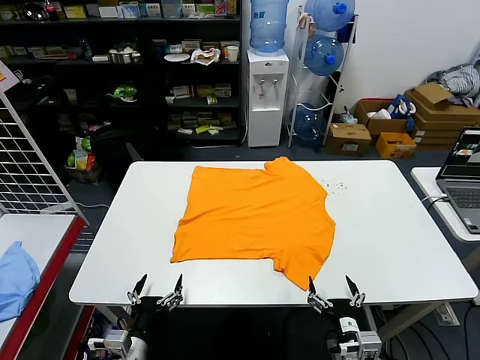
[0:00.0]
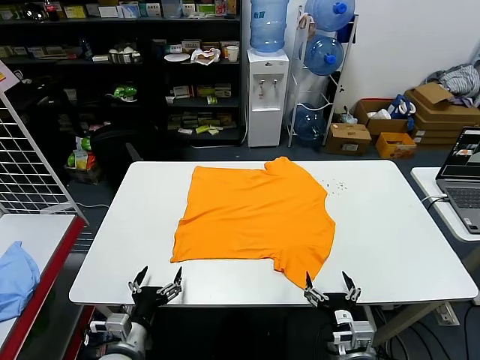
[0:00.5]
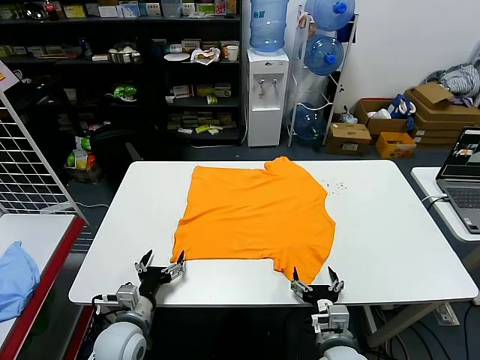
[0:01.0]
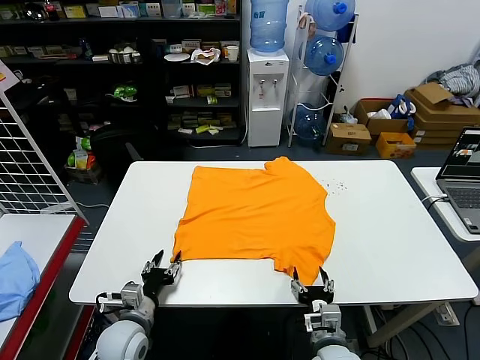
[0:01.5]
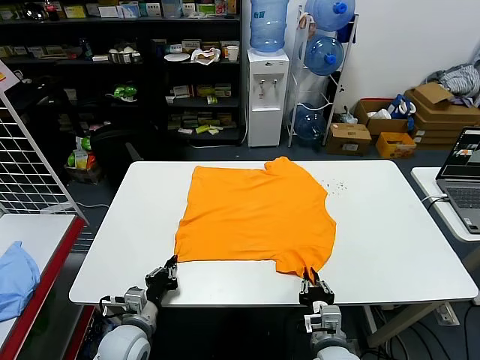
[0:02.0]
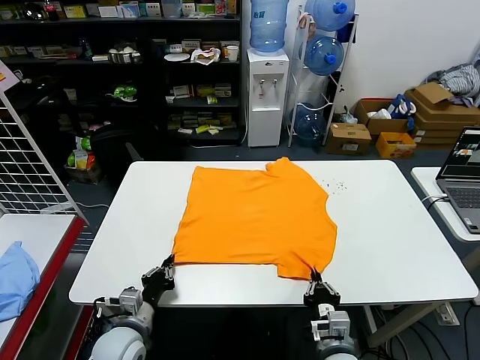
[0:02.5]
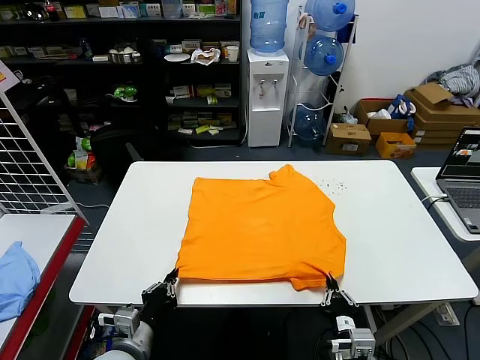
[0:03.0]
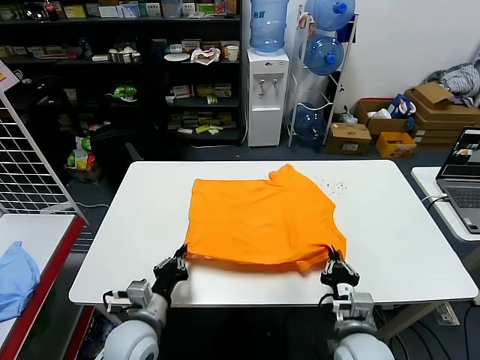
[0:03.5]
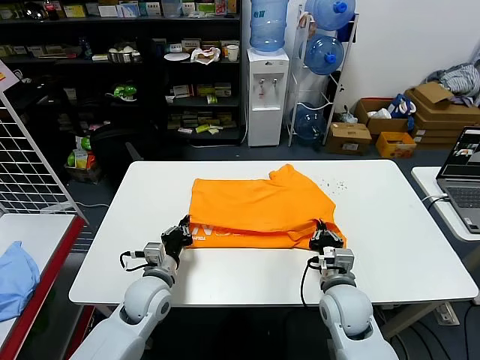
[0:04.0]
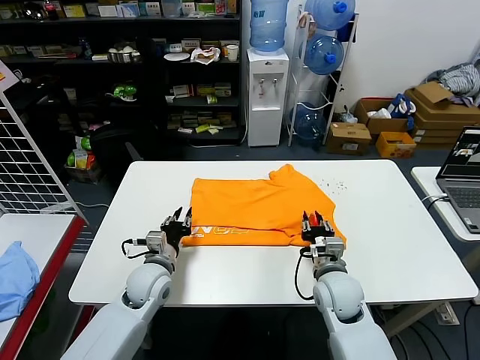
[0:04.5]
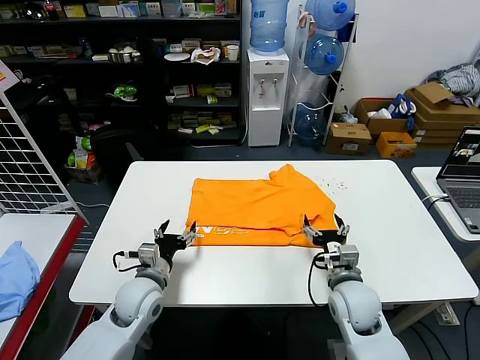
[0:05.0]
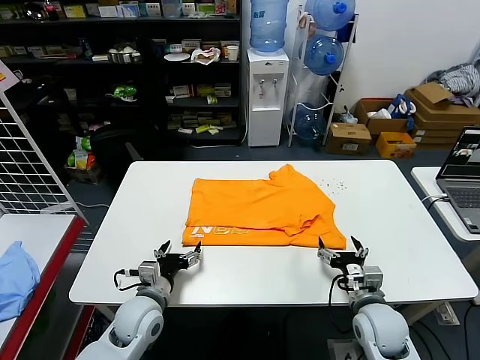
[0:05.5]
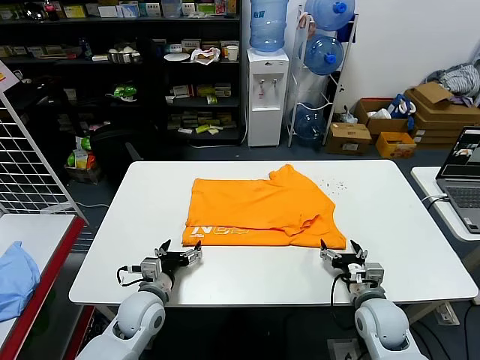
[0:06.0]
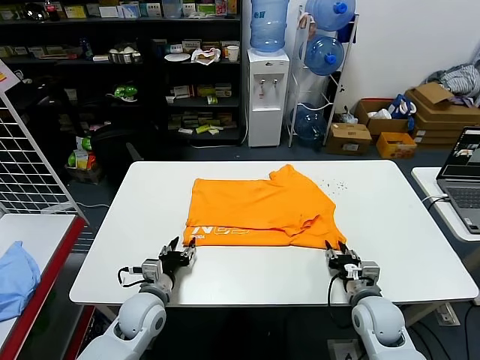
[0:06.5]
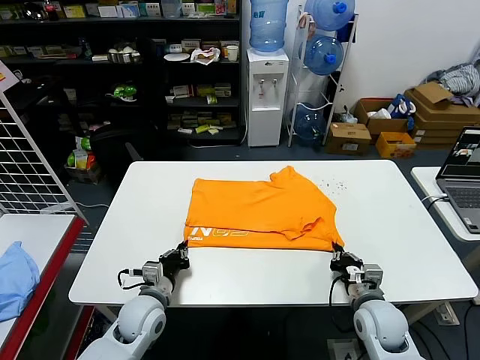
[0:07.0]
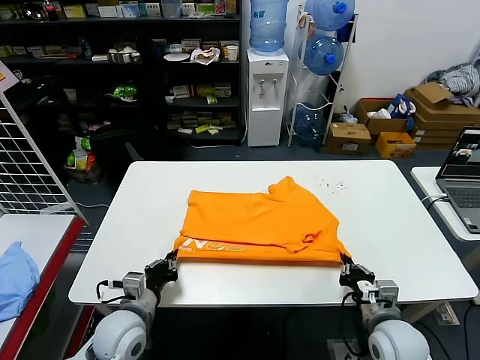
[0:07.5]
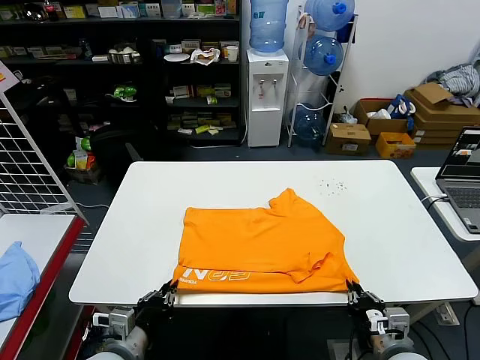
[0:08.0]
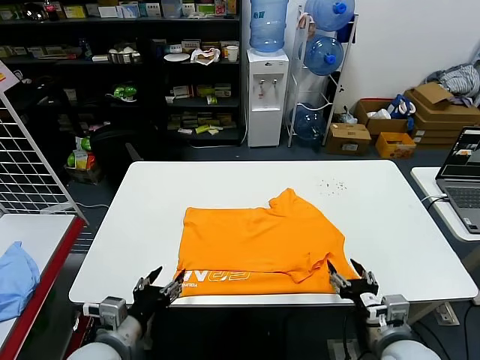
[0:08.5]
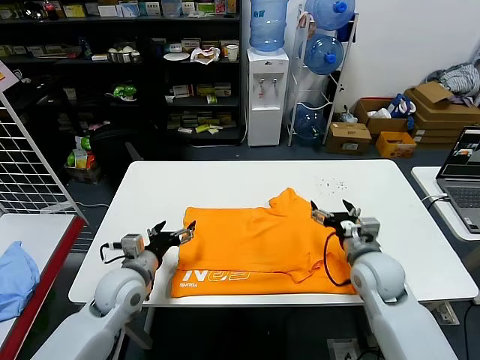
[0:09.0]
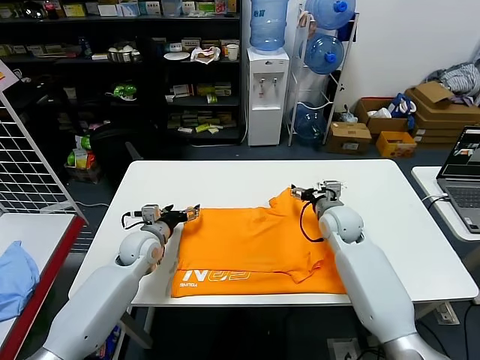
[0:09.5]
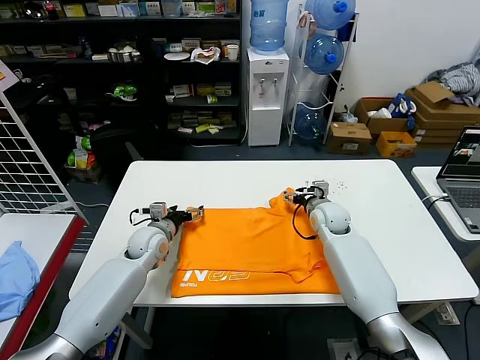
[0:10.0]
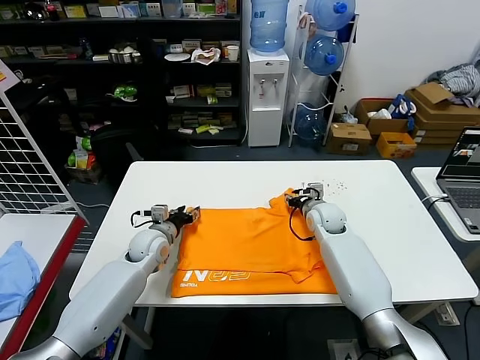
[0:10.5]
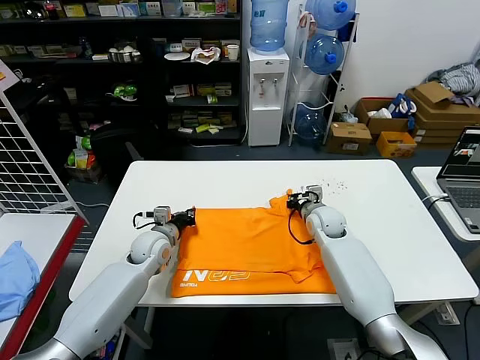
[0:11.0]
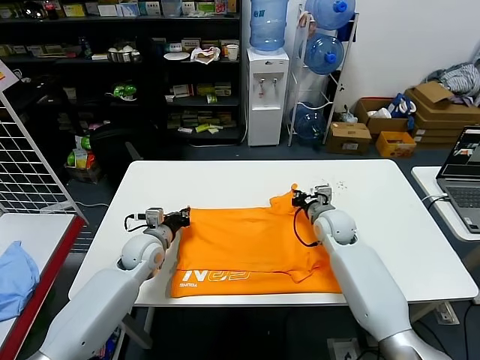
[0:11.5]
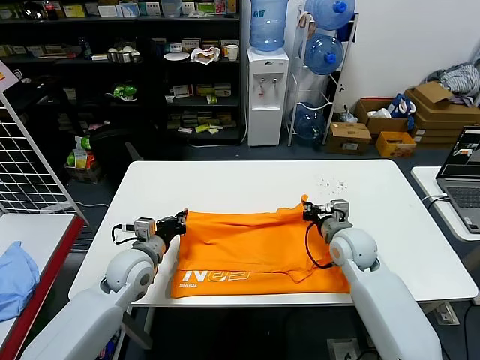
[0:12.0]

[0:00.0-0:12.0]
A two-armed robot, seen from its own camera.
Task of the whole recording: fold and organize the clothes.
Step, 0:00.0 to 0:02.0: use both grippers simultaneously to clamp the lower edge of the clothing fabric.
Step, 0:02.5 to 0:04.5: use both grippers to drag the lower edge of the fabric forward and fold it over the upper edge.
Step, 0:05.0 to 0:08.0: Drag the clothes downward with both gripper.
Step, 0:08.5 to 0:11.0: use both grippers simultaneously to clamp the upper edge of the clothing fabric.
0:02.0 to 0:04.0: The right gripper goes roughly 10 cm forward and upward, while the left gripper goes roughly 5 cm forward.
0:04.0 to 0:06.0: The left gripper opens its fingers; the right gripper moves to the right, approximately 10 cm, and opens.
0:06.0 to 0:08.0: The right gripper travels backward by some 10 cm, and closes up, while the left gripper heads backward and upward, covering some 15 cm, and closes up.
0:08.0 to 0:10.0: Both grippers move forward, about 30 cm. The right gripper opens; the left gripper opens its fingers.
0:10.0 to 0:12.0: The grippers both shift backward by about 10 cm. The left gripper closes its fingers, while the right gripper closes up.

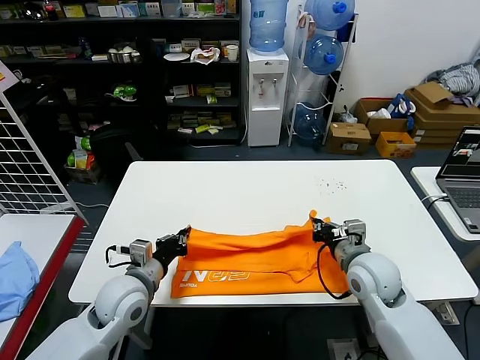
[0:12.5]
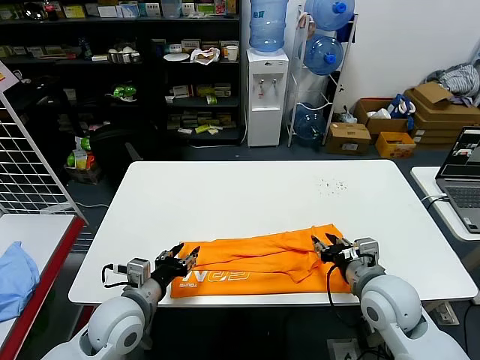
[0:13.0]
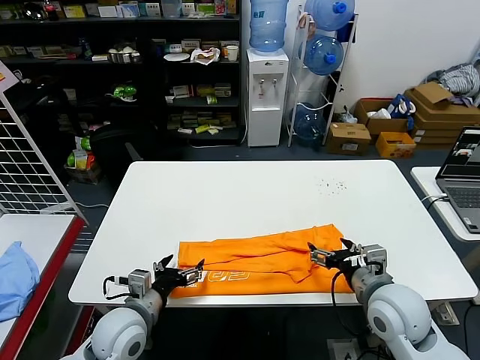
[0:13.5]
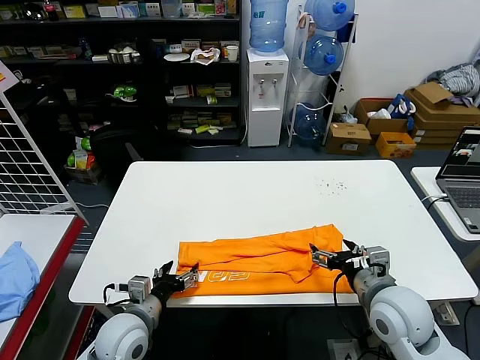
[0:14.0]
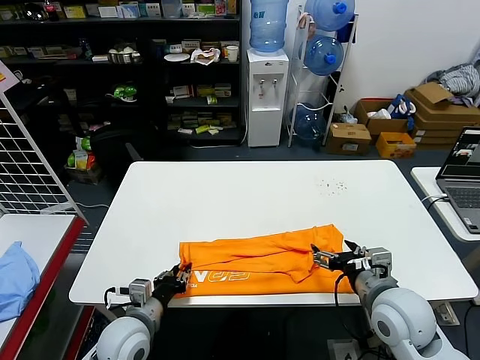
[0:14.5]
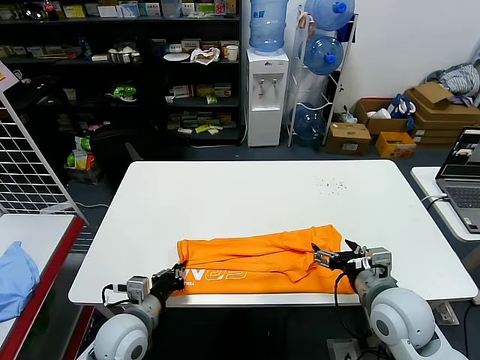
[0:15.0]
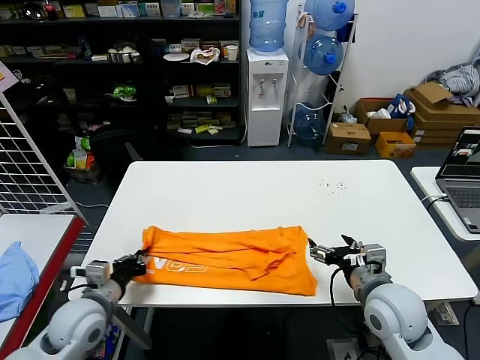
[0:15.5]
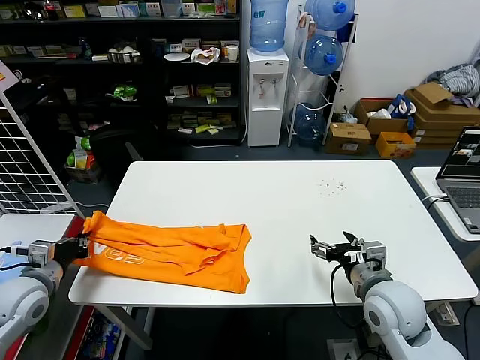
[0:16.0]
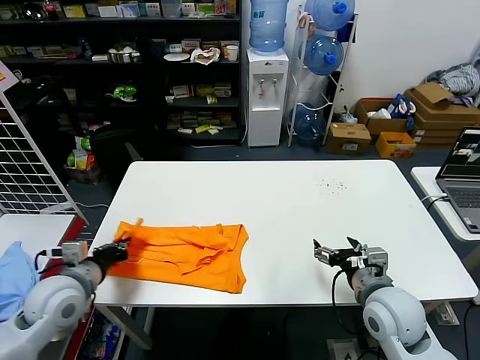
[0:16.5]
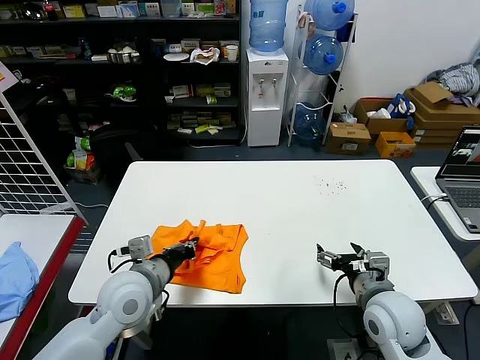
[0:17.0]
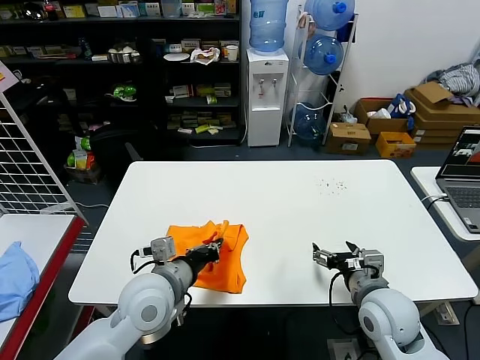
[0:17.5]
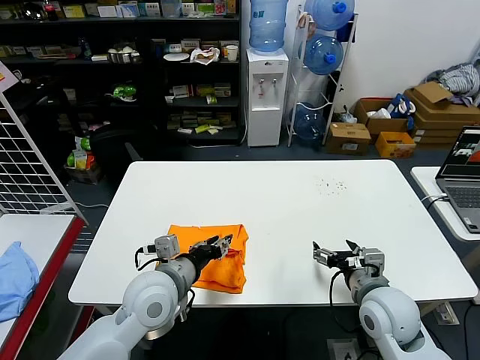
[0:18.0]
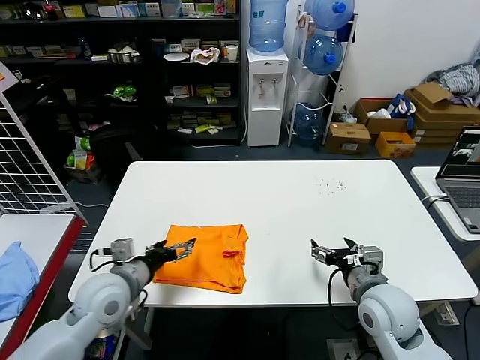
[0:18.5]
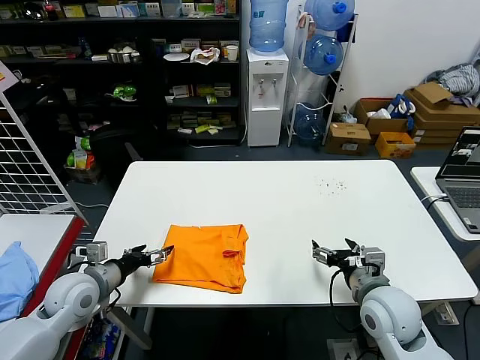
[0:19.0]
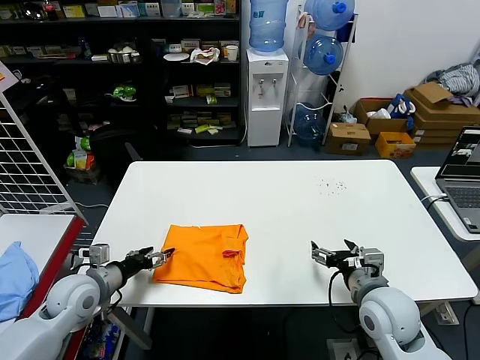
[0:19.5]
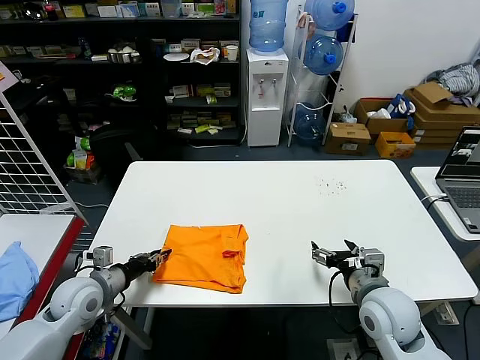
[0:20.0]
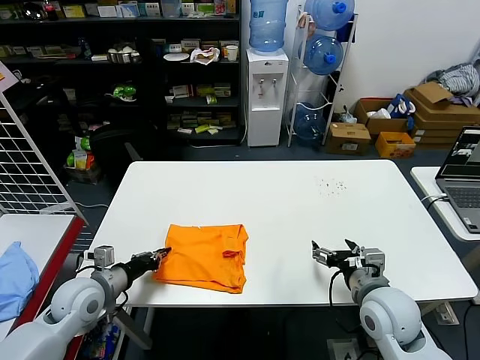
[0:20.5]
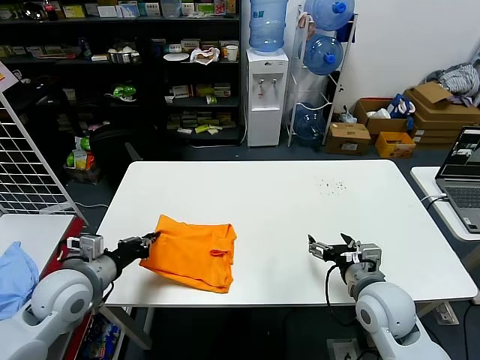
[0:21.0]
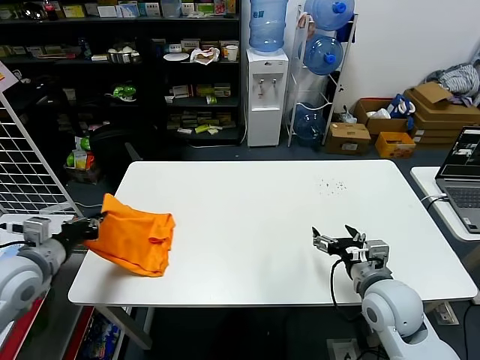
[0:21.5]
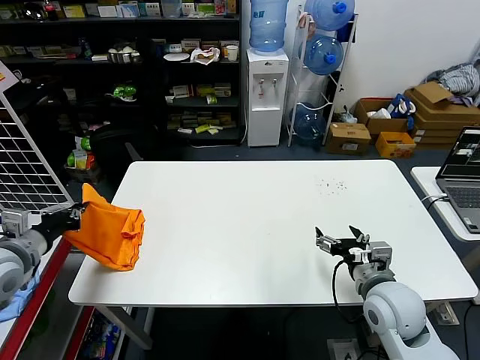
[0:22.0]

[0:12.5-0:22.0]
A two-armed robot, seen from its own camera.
Task of the whole recording: fold and organize the clothes.
Step, 0:13.0 to 0:14.5: use the left gripper to clamp the left edge of the fabric.
Step, 0:15.0 to 0:17.5: use the left gripper to drag the left edge of the fabric to the left and folds it over the right edge.
0:12.5 to 0:14.5: The left gripper is displaced backward and downward by approximately 10 cm, and opens up. Meanwhile the right gripper moves backward, approximately 10 cm, and opens up.
0:14.5 to 0:16.5: The left gripper goes some 15 cm to the left and upward, and closes up.
0:16.5 to 0:18.0: The left gripper goes some 20 cm to the right, and opens up.
0:18.0 to 0:20.0: The left gripper moves to the left and downward, roughly 20 cm, and opens, then closes once more.
0:20.0 to 0:22.0: The left gripper travels upward and to the left by some 15 cm.

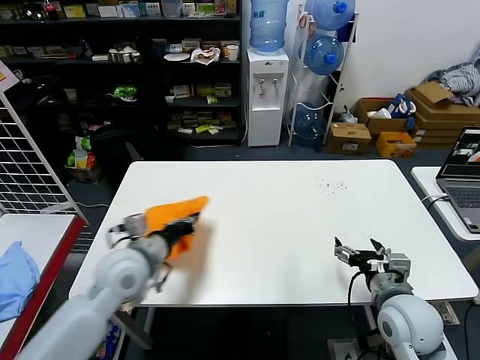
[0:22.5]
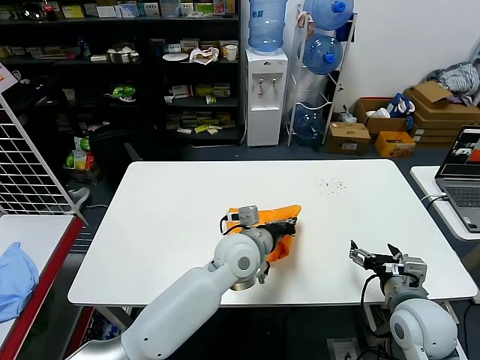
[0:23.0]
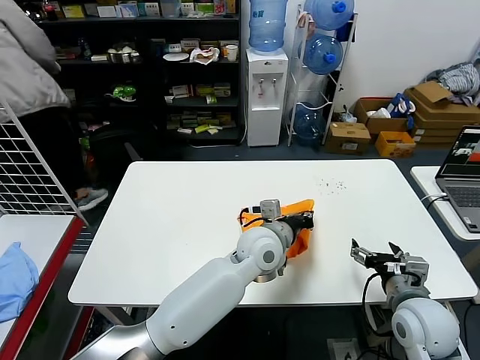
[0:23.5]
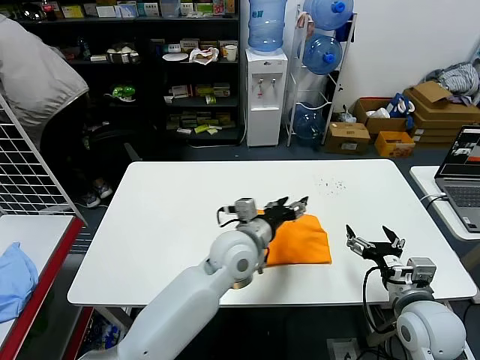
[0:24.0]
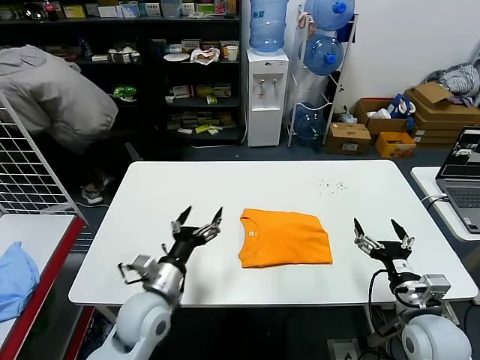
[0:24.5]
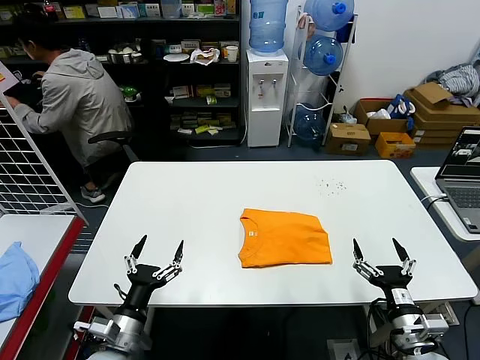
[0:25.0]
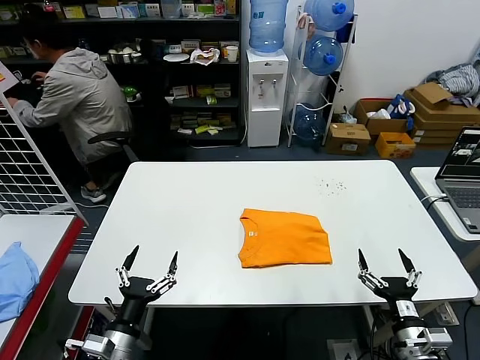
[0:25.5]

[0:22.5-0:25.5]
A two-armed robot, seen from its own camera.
Task of the whole recording: fold and organize the clothes.
0:22.5 to 0:24.0: The left gripper goes roughly 25 cm to the right, and opens up.
0:24.0 to 0:25.5: The left gripper shifts approximately 35 cm to the left, backward and downward, and opens; the right gripper moves backward and downward, approximately 10 cm.
